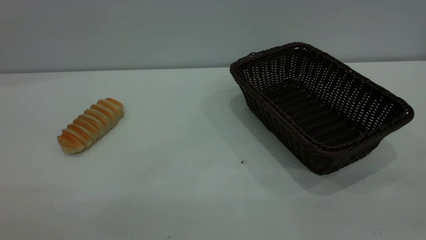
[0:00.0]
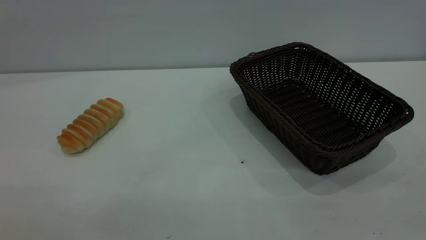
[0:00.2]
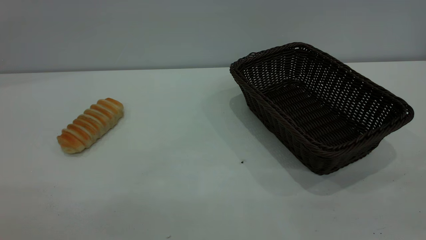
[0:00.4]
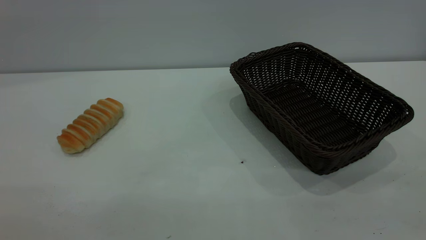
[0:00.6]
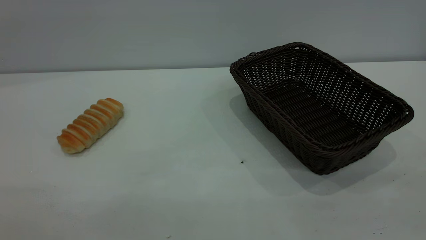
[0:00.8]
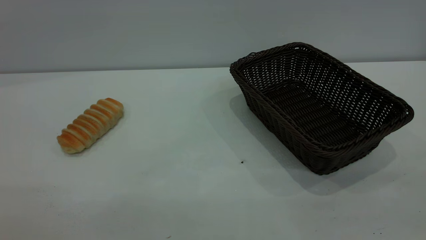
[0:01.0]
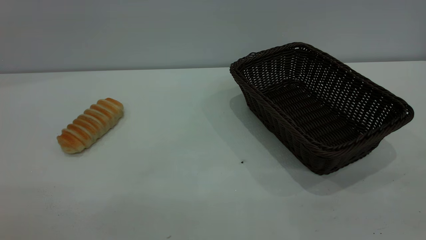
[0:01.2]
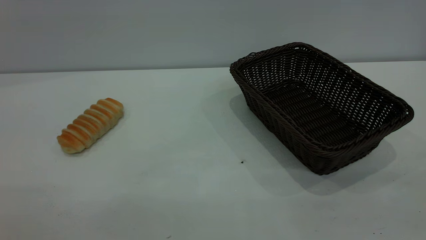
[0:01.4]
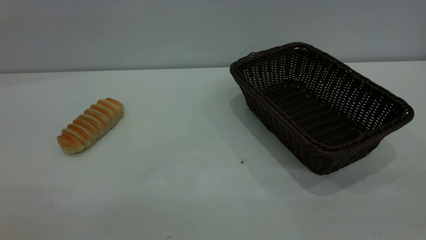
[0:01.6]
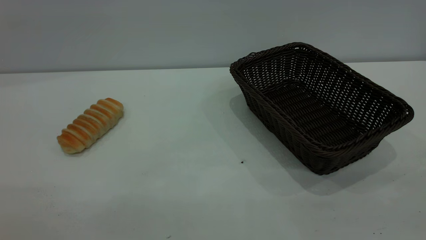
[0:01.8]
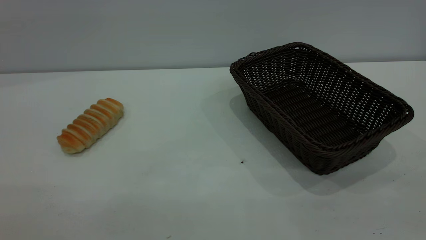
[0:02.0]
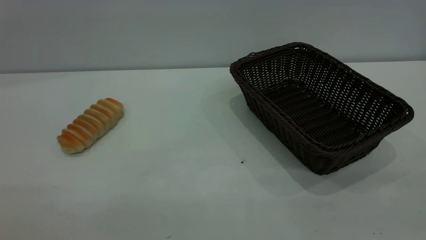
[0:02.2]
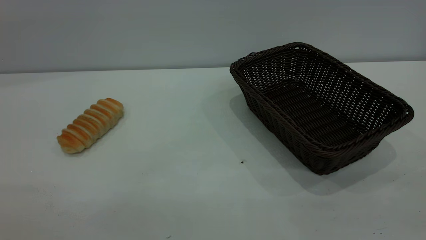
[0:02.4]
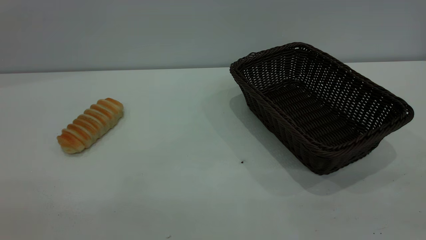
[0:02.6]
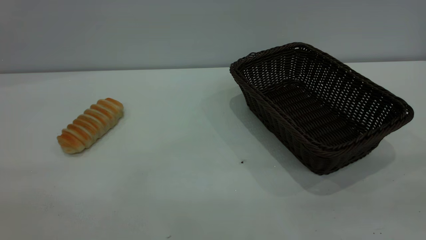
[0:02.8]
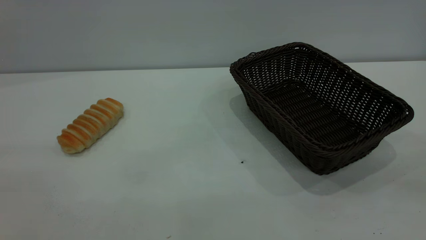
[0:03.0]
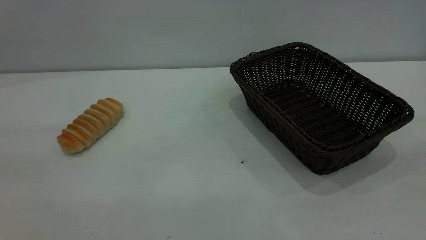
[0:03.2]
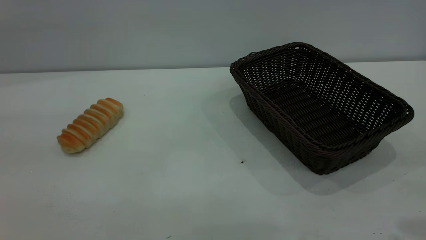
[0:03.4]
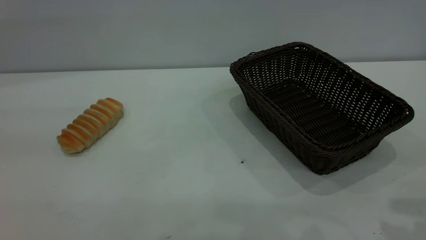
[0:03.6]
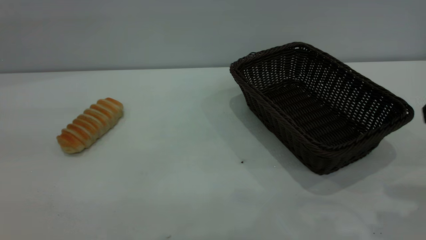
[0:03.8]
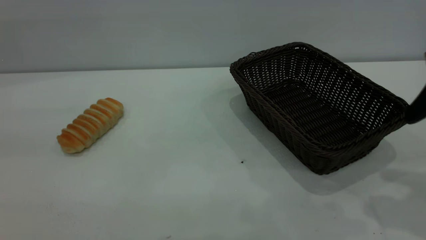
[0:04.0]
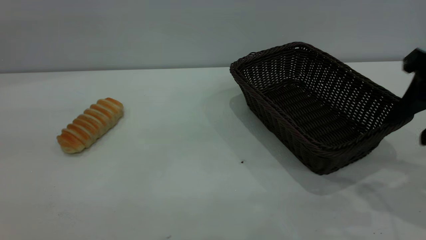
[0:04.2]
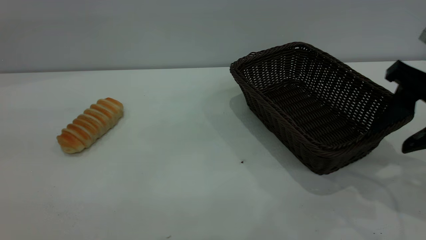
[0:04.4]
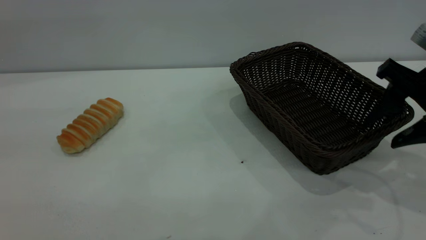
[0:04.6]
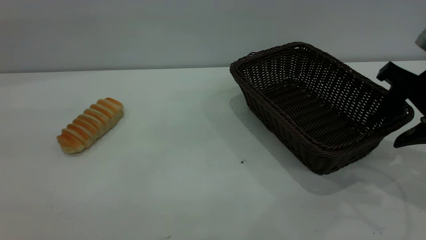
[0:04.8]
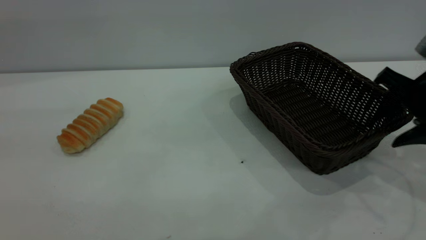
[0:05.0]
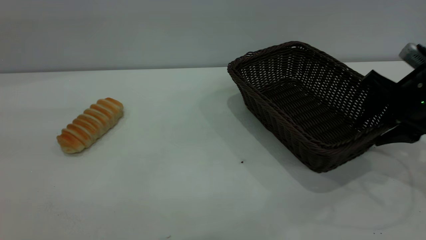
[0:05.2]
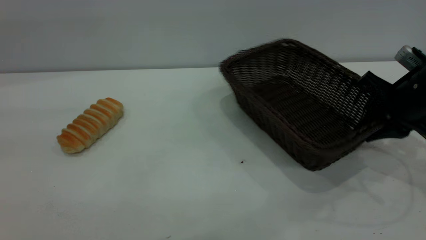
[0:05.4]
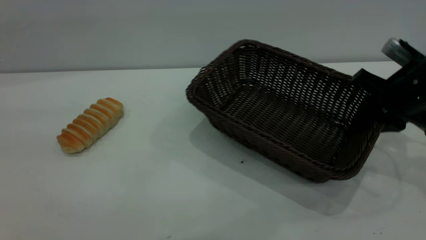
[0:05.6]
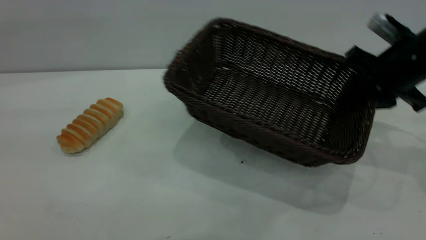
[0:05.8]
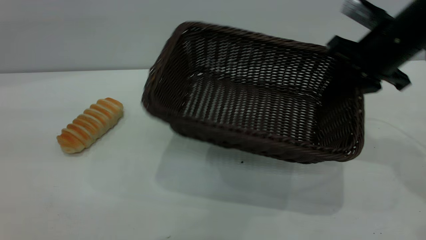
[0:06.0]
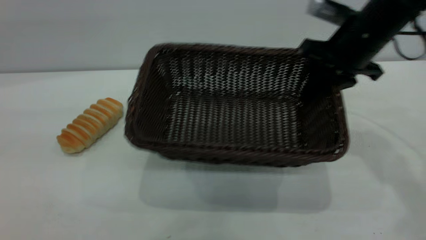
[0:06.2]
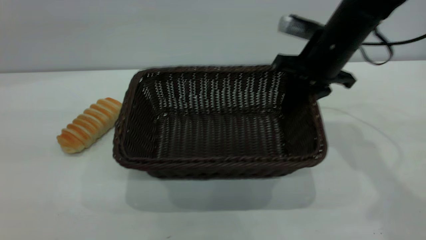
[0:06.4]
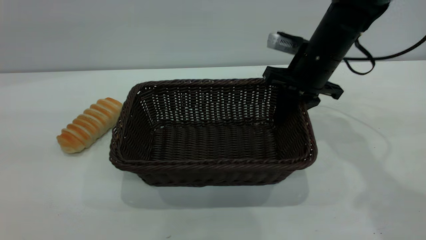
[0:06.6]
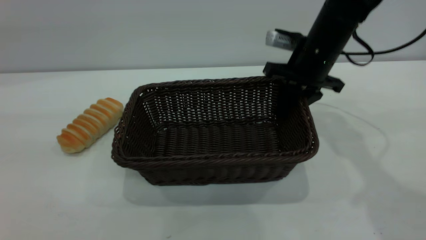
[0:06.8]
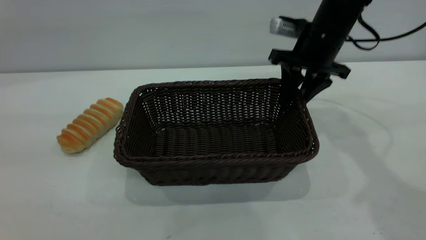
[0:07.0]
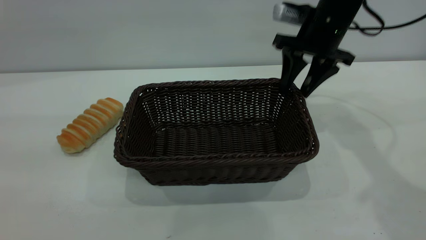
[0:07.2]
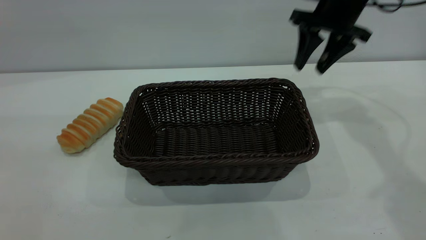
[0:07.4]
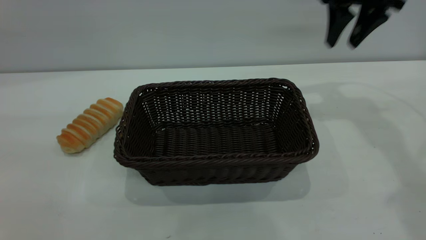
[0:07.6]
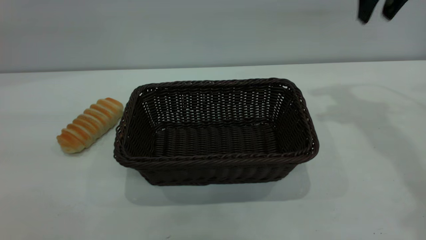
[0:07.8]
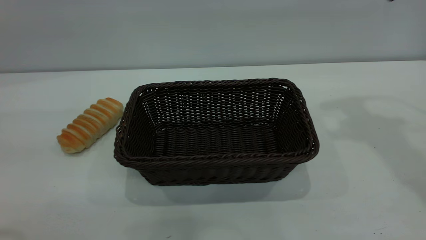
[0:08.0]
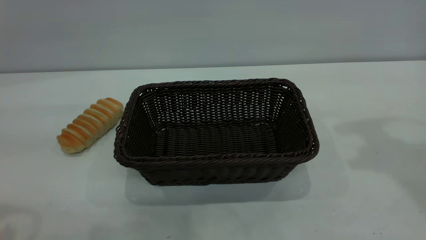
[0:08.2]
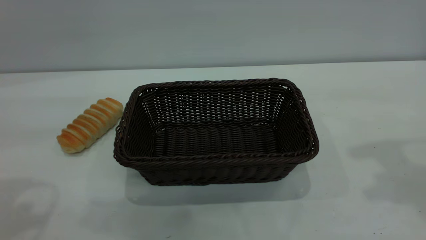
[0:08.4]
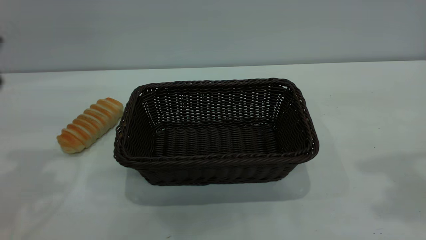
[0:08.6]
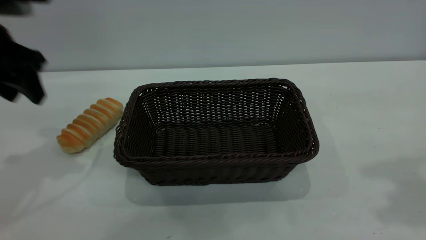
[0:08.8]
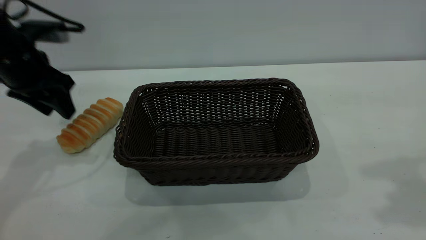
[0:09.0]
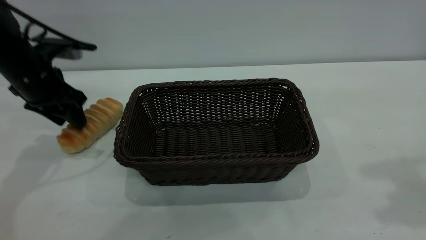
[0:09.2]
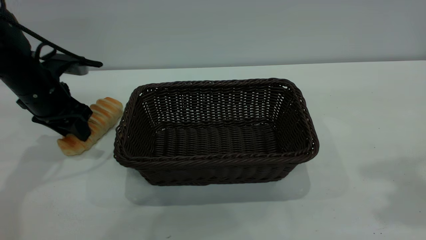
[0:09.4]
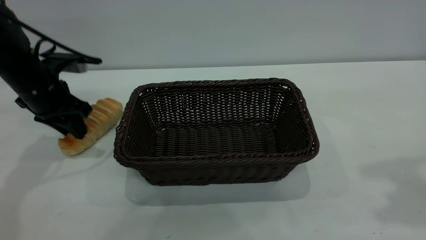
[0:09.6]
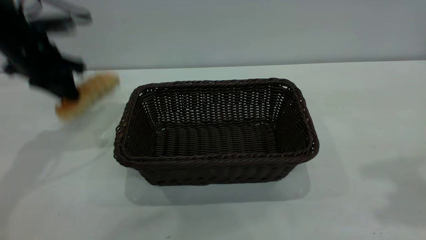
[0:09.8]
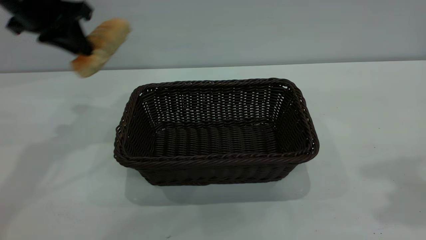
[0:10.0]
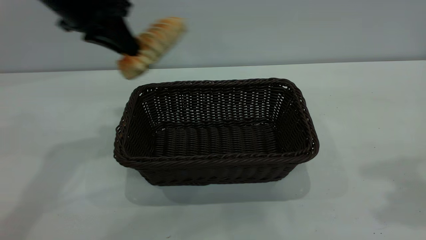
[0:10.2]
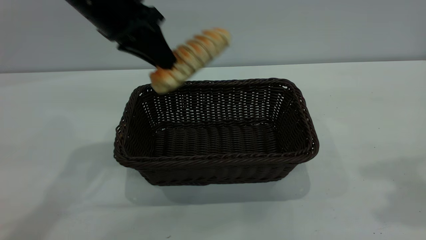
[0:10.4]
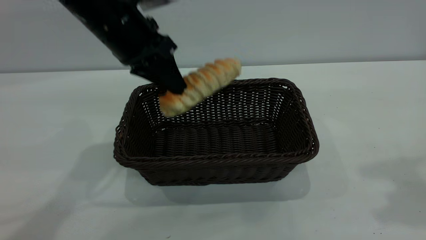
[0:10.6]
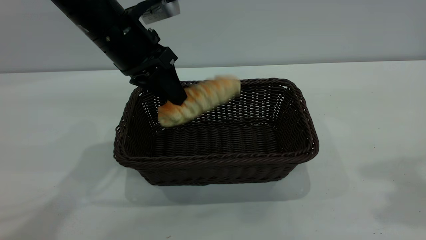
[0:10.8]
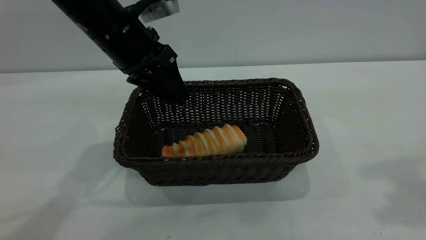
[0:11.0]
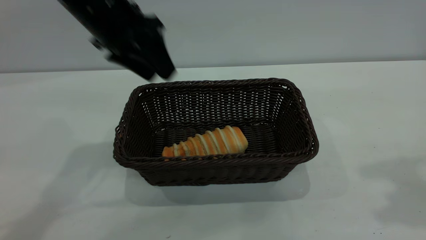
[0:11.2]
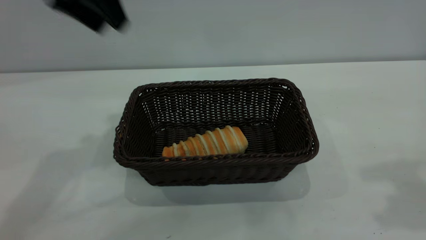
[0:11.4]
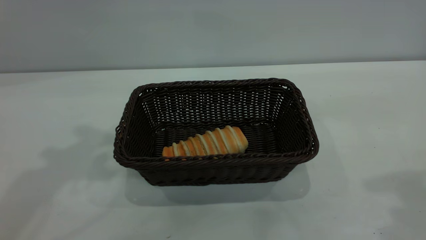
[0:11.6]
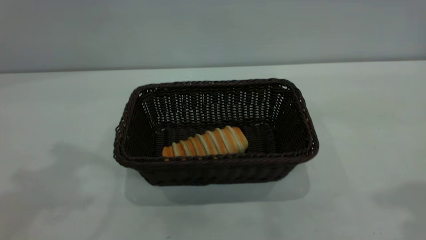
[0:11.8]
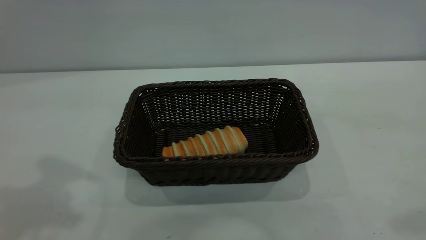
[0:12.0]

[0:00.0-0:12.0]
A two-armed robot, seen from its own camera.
Task of the whole recording: One hand grasps the black basket and places it in the middle of the table, while the other hand picks up the long bread and puts it into the black basket.
Step, 0:00.0 to 0:07.2: Move the basket to the center of view.
Step, 0:10.0 to 0:11.0: place the bread into the basket.
0:00.0 to 0:01.6: The two grippers keep their place.
0:03.0 to 0:04.4: The right gripper is displaced forward and downward by about 25 cm.
0:04.4 to 0:06.0: The right gripper travels forward by about 10 cm, and closes.
0:06.0 to 0:07.6: The right gripper goes about 10 cm forward and upward, and opens up.
0:07.6 to 0:09.0: The right gripper goes some 25 cm backward and upward. Meanwhile the left gripper heads forward and downward, covering roughly 35 cm.
0:09.0 to 0:10.4: The left gripper goes about 15 cm to the right and upward, and closes.
0:10.4 to 0:12.0: The left gripper travels upward, backward and to the left by approximately 25 cm, and opens, while the right gripper moves backward, about 10 cm.
